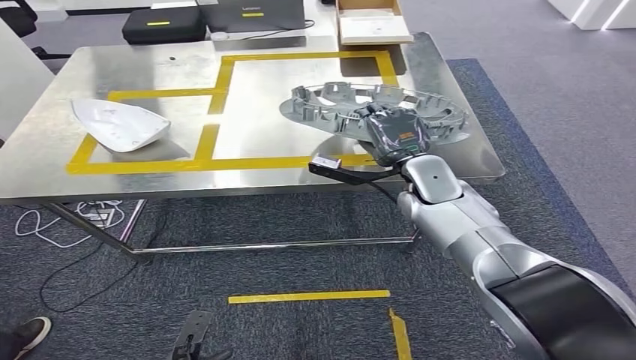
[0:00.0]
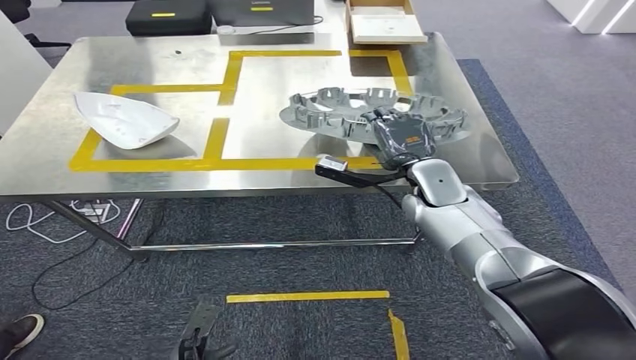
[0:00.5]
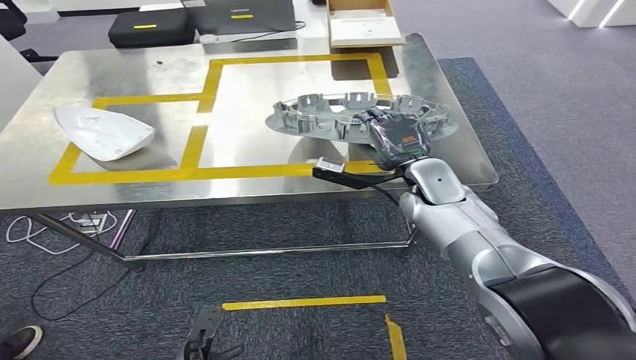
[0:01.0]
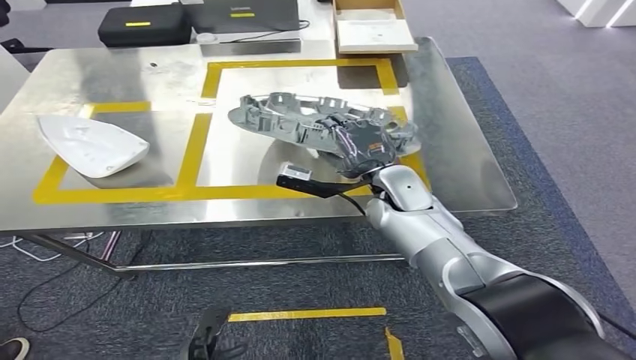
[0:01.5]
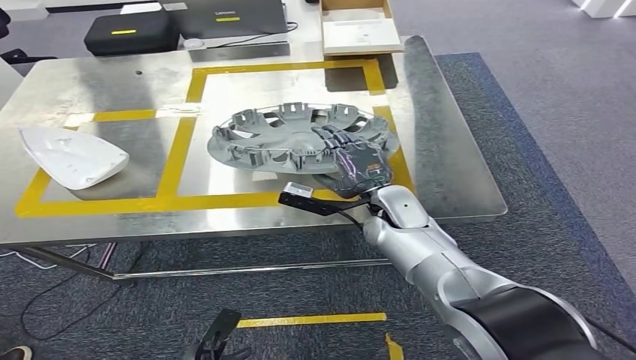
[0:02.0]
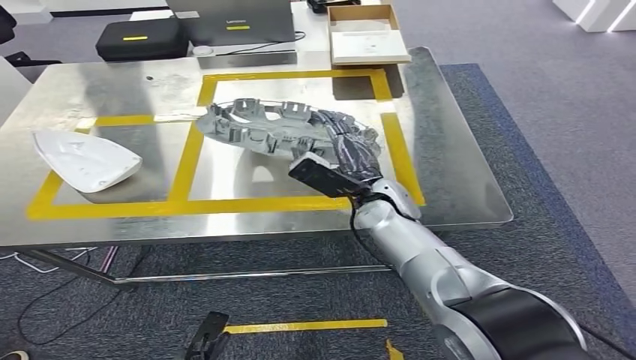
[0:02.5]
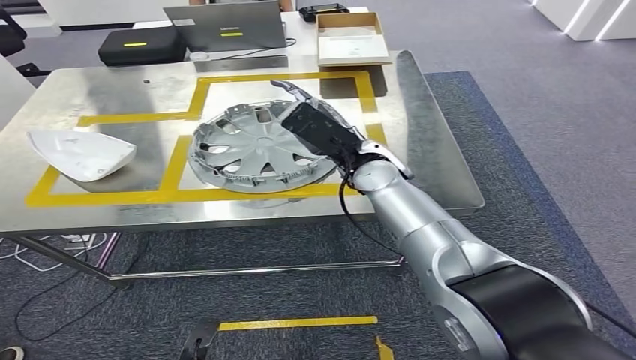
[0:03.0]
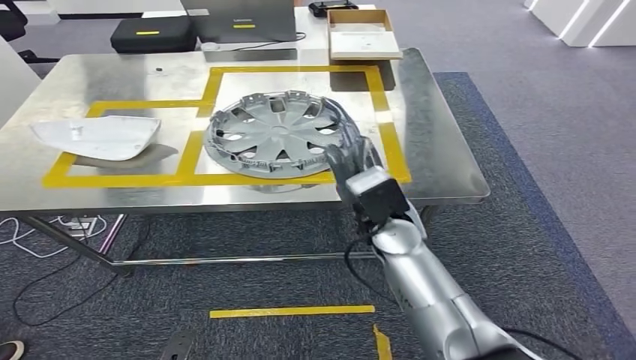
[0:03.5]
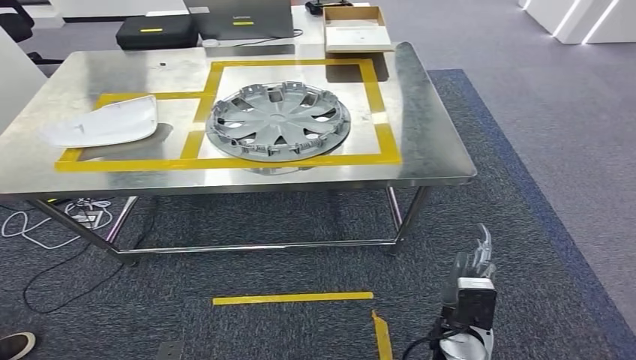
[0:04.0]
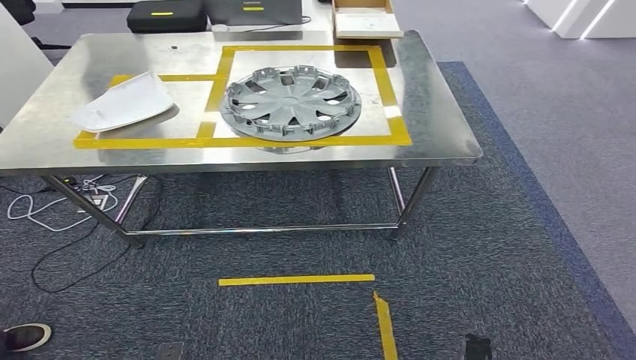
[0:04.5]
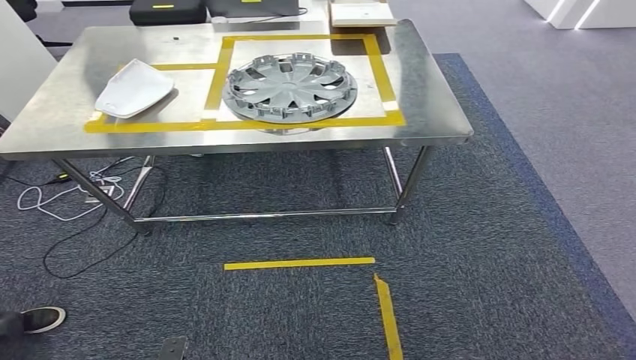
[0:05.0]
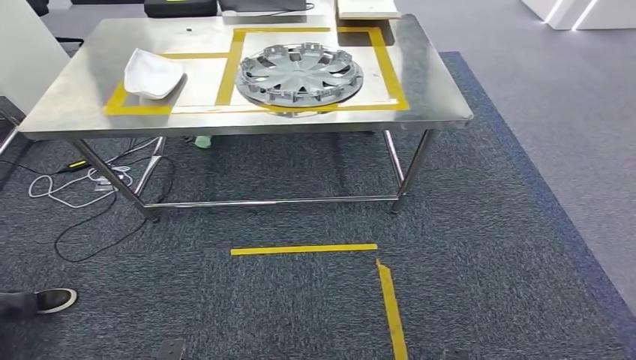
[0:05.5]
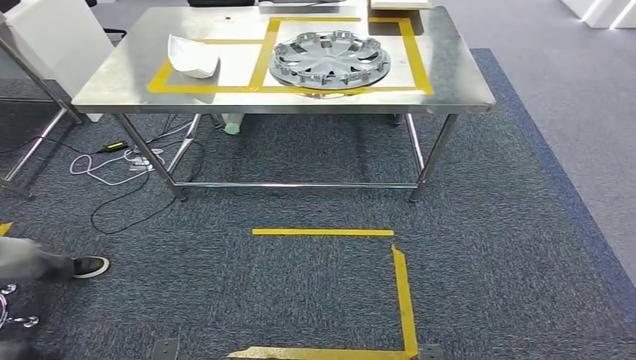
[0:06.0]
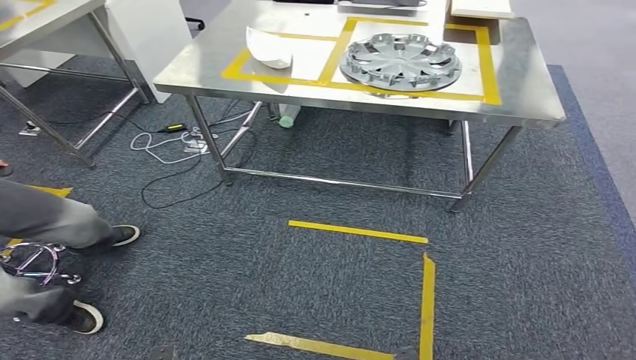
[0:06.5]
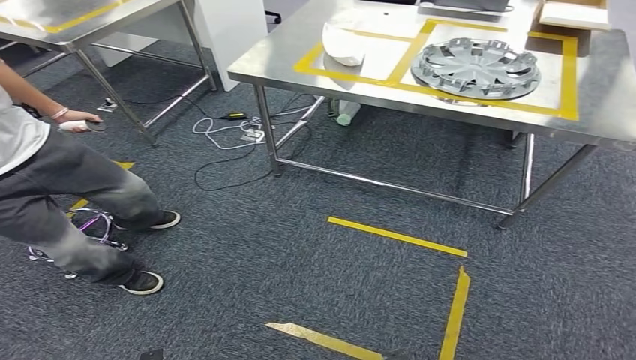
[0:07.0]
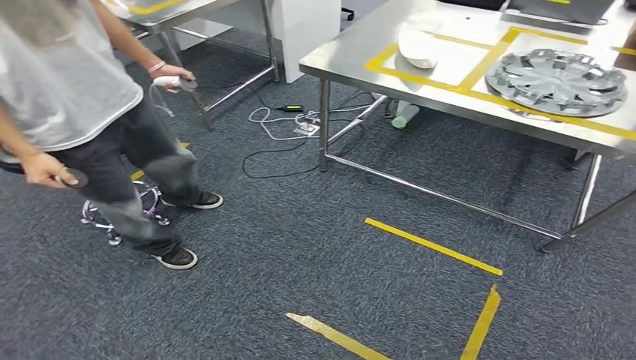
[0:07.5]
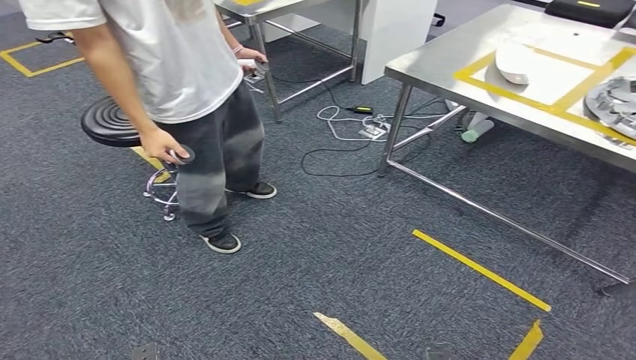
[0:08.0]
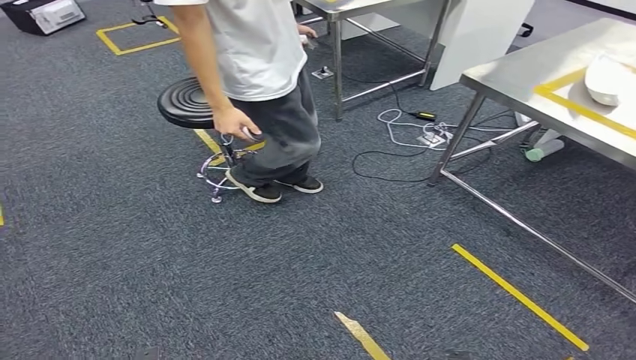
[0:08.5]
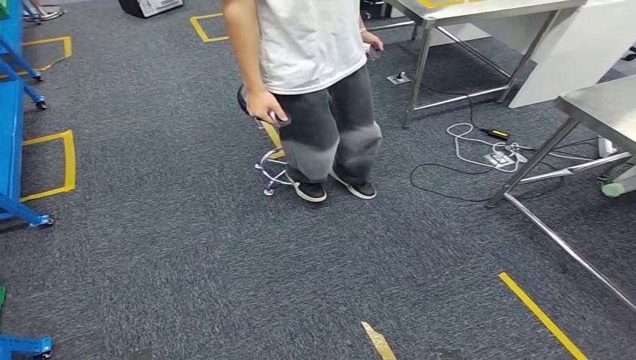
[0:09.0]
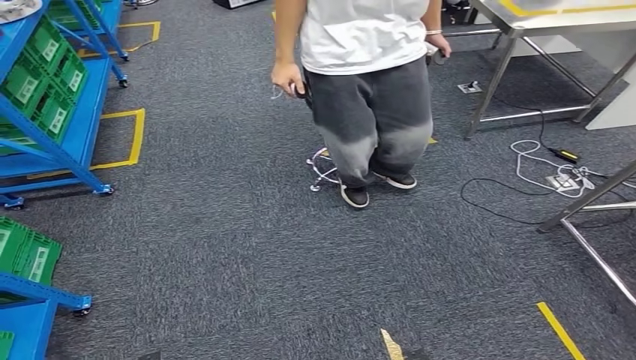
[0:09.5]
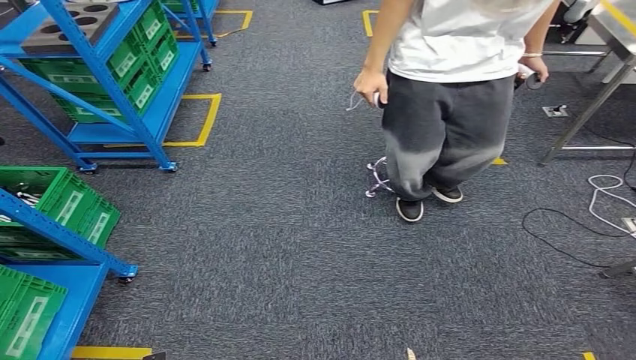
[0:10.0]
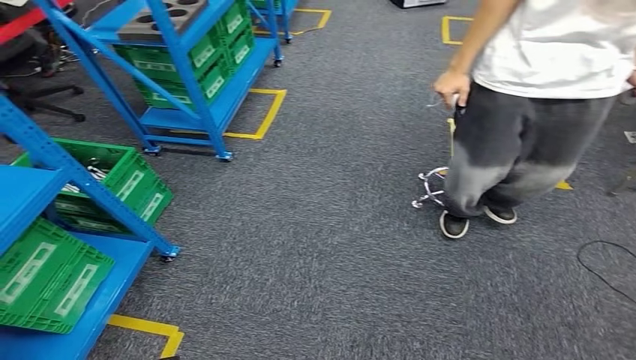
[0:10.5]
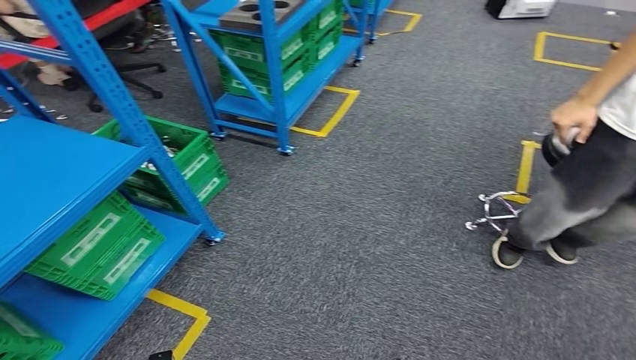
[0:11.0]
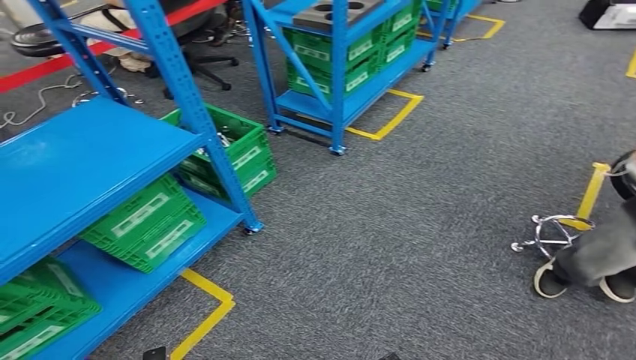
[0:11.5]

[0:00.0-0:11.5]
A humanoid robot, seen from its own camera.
Step, 0:00.0 to 0:04.5: Insert the small component into the corresponding slot on the workbench.

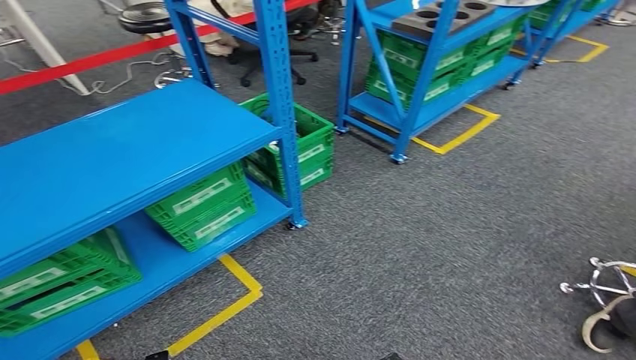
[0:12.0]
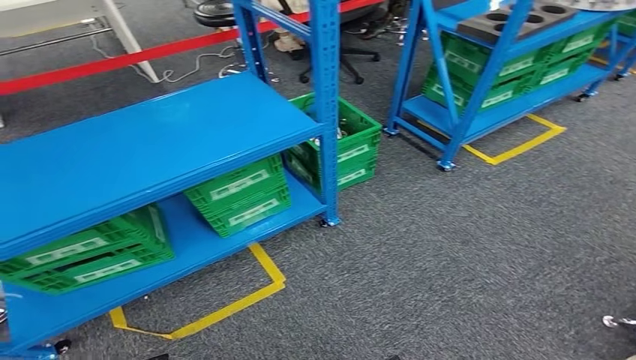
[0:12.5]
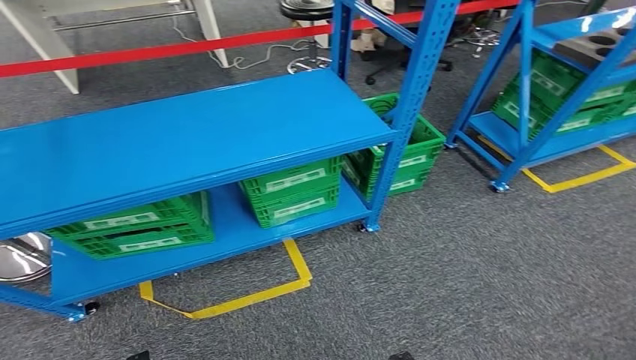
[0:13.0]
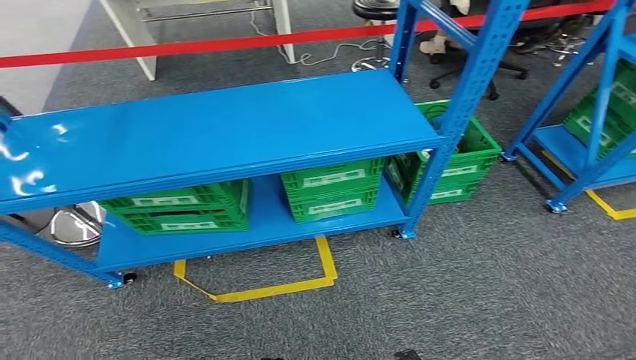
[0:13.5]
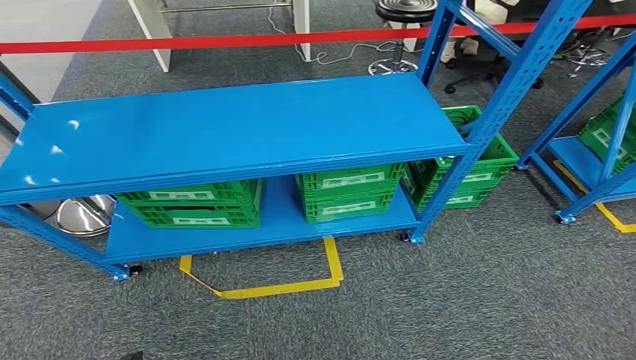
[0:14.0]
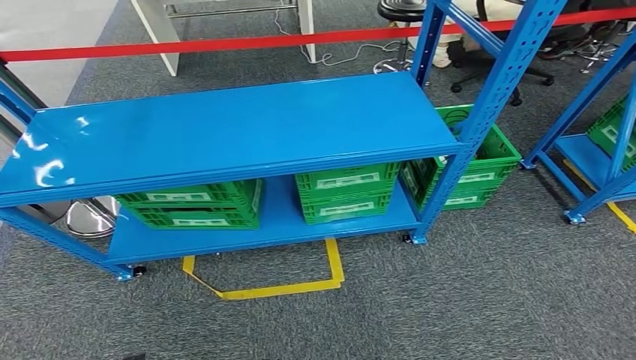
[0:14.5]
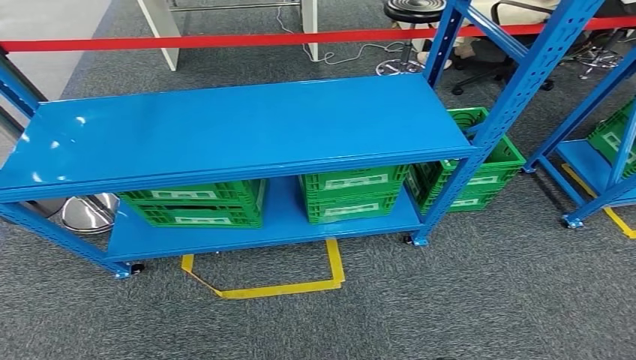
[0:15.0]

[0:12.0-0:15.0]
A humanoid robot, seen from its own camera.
Step, 0:12.0 to 0:15.0: Move to the initial position of the workbench.
